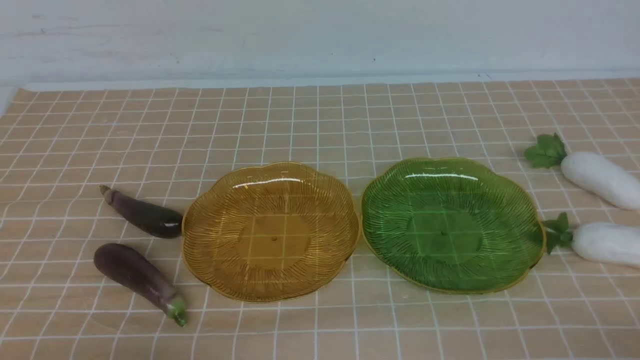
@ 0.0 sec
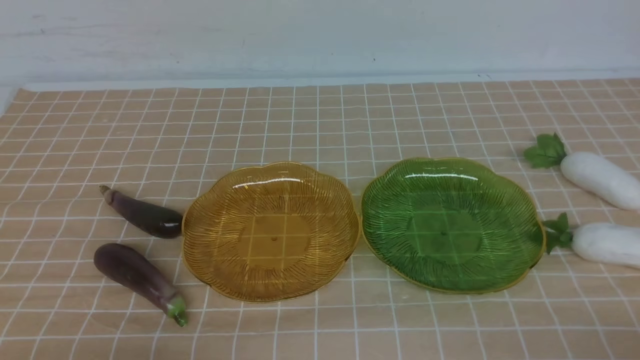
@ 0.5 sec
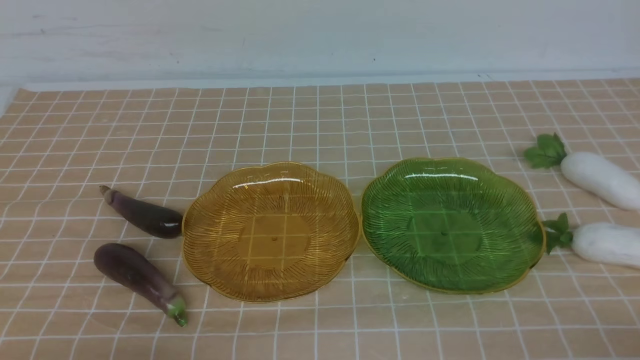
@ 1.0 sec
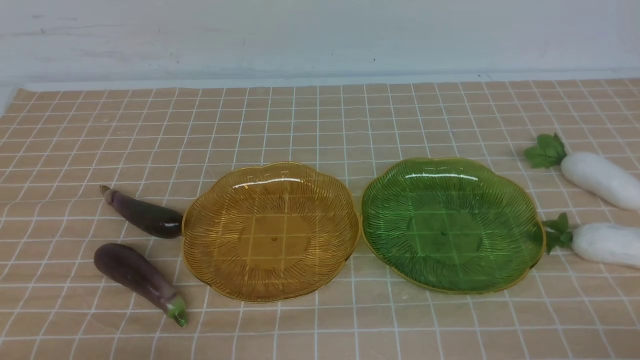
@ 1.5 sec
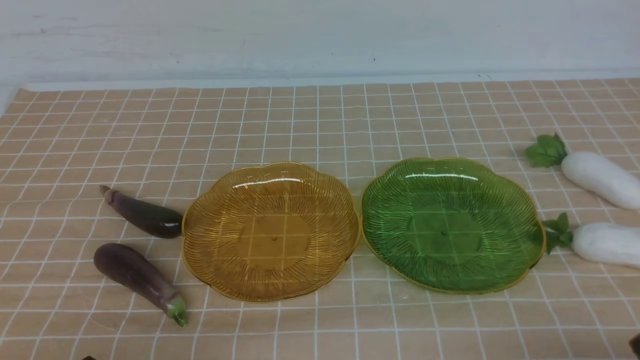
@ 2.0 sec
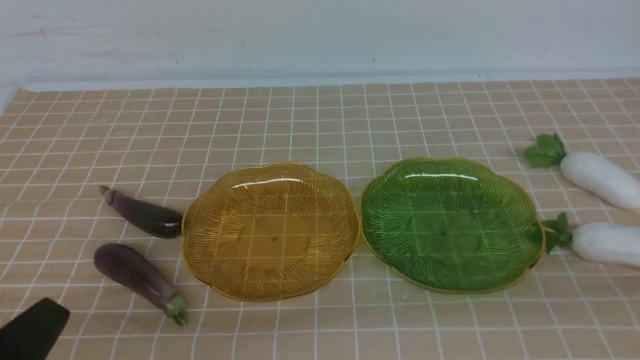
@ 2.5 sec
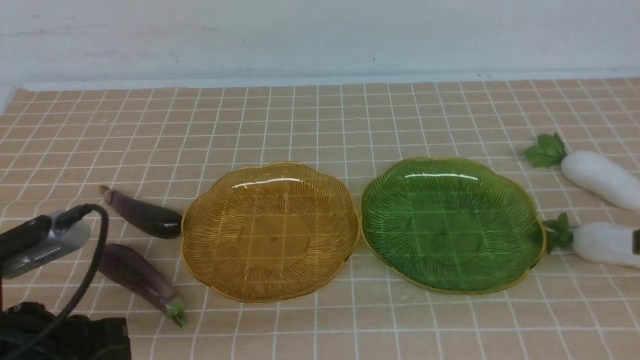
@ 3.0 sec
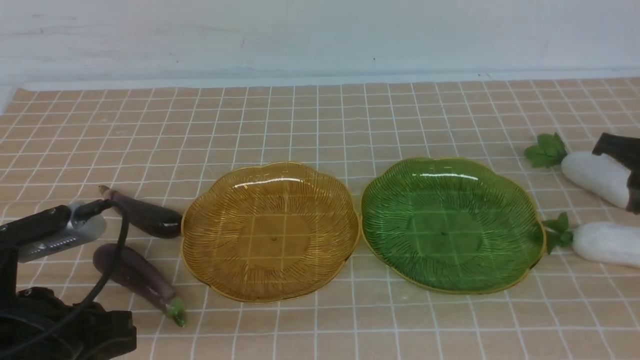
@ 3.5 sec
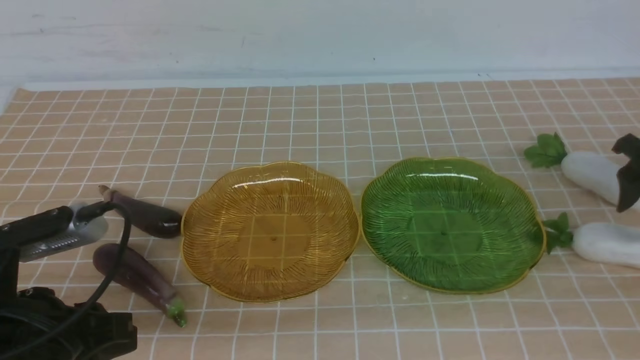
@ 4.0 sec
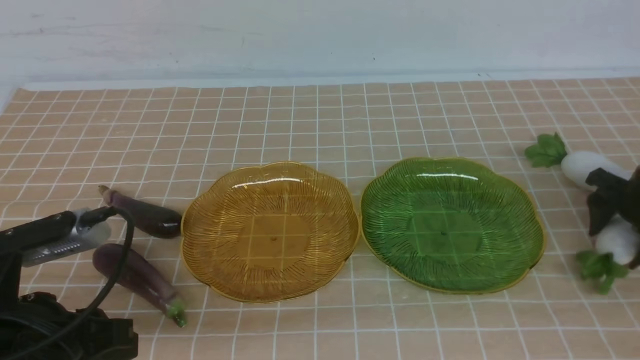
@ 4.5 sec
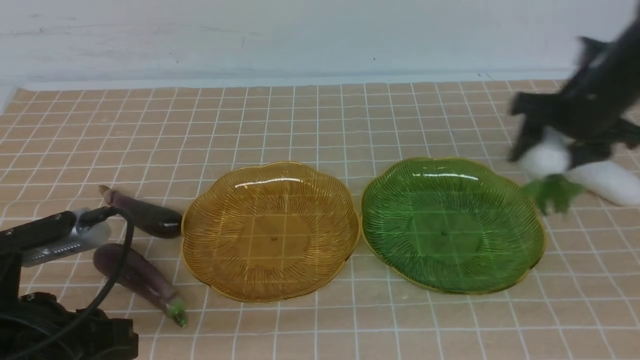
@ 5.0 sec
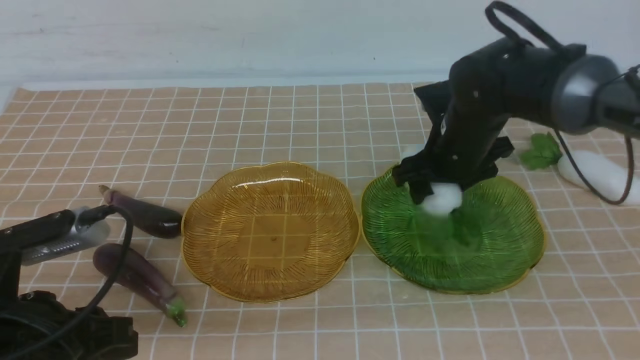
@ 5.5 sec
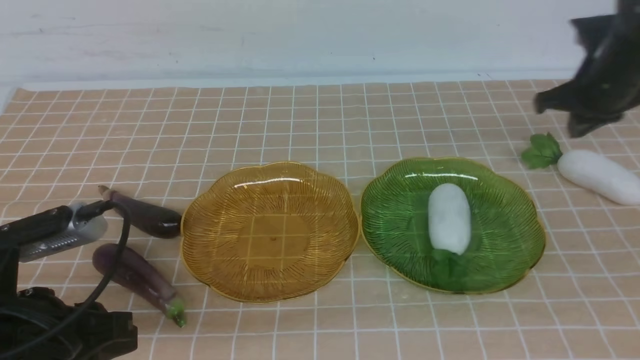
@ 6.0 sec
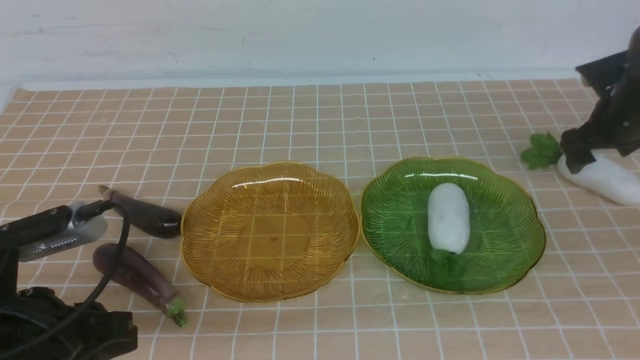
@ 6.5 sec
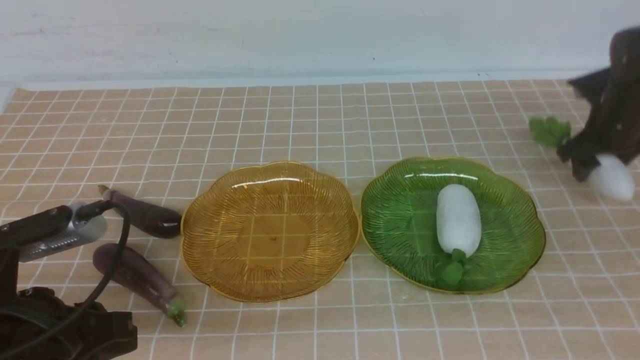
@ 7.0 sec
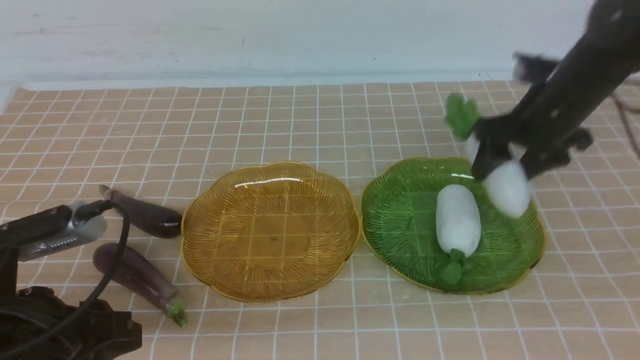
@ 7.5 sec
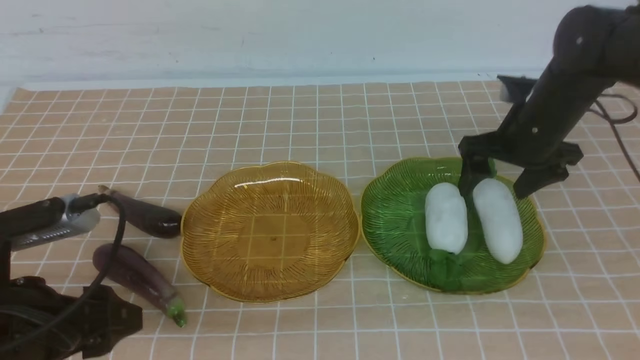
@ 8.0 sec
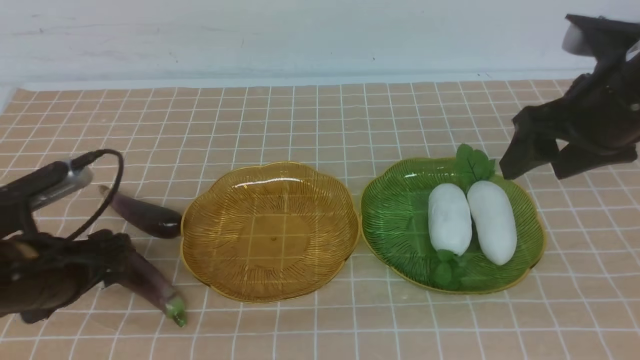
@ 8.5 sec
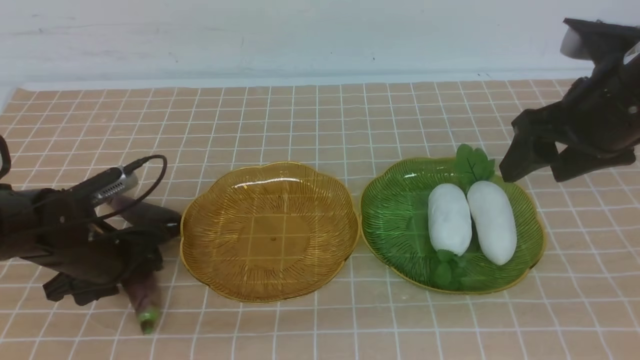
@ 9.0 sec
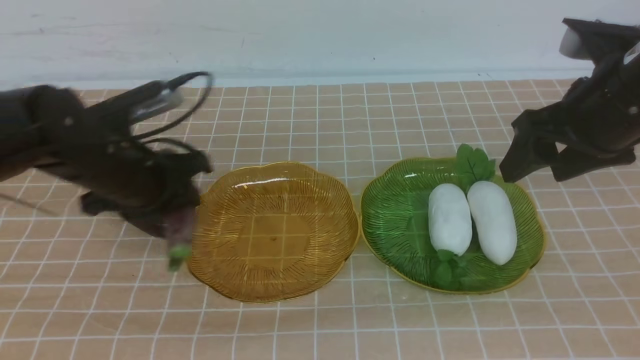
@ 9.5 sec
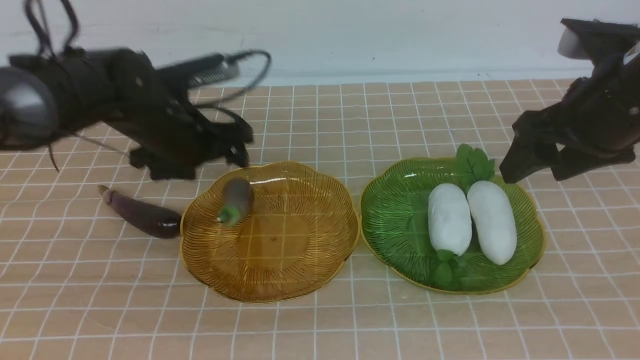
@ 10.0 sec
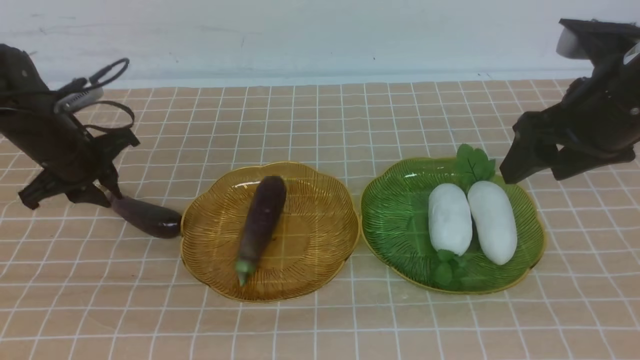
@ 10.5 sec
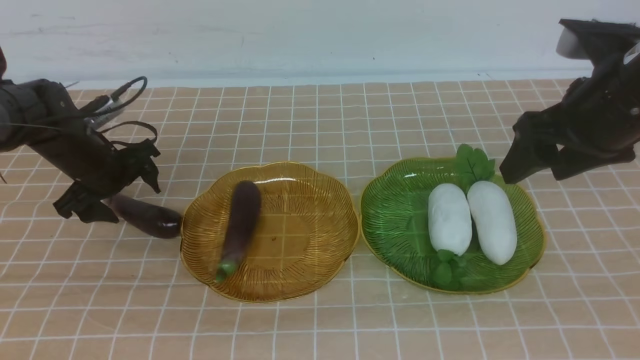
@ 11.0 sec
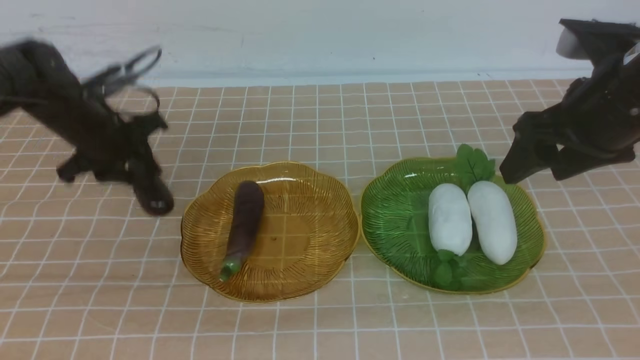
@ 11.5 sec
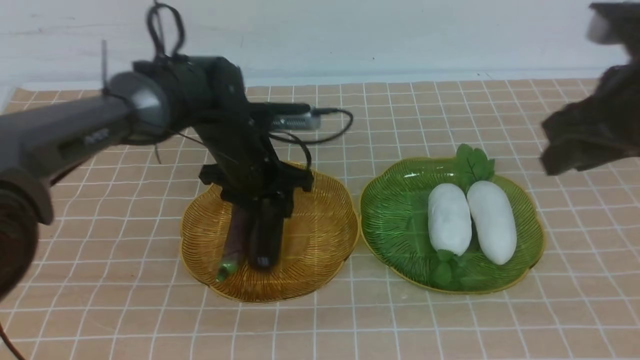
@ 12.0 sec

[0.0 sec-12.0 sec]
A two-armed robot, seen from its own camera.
Step, 0.0 sec to 8.0 sec: use the right arm to grab a radish and put it into the right plate.
Step, 8.5 sec to 10.0 sec: use the left arm to grab an eggplant and put it into the left plate.
2.0 sec to 4.0 sec: The right gripper shifts approximately 30 cm forward, and opens its fingers; the left gripper moves forward and upward, roughly 10 cm.
4.0 sec to 6.0 sec: The right gripper shifts roughly 15 cm to the left, forward and upward, and closes its fingers.
6.0 sec to 8.0 sec: The left gripper opens its fingers. Meanwhile the right gripper is displaced to the left by some 5 cm, and opens up.
8.0 sec to 10.0 sec: The right gripper goes about 10 cm backward and upward. The left gripper heads forward, covering roughly 25 cm, and closes and opens again.
10.0 sec to 12.0 sec: The left gripper goes some 5 cm to the right. The right gripper closes.

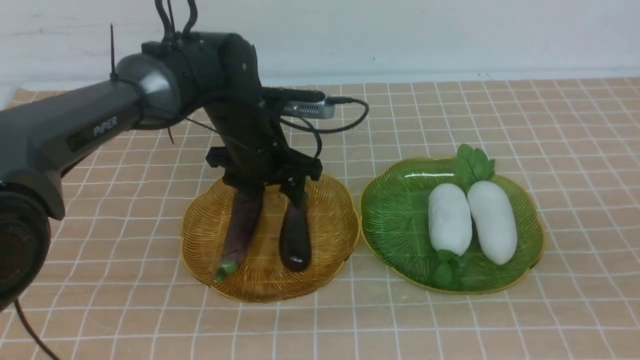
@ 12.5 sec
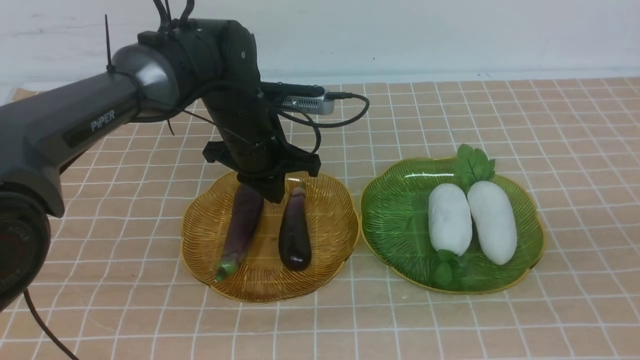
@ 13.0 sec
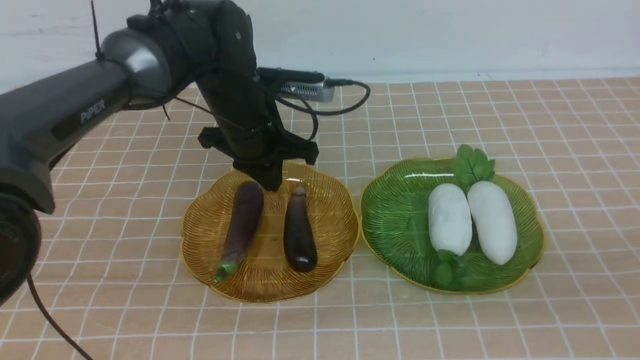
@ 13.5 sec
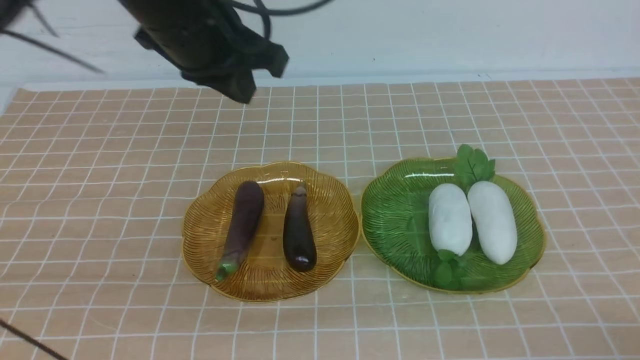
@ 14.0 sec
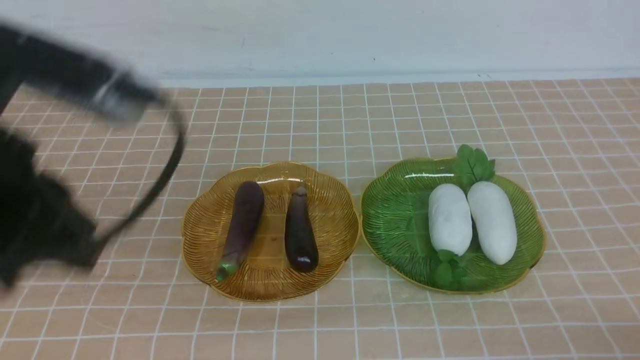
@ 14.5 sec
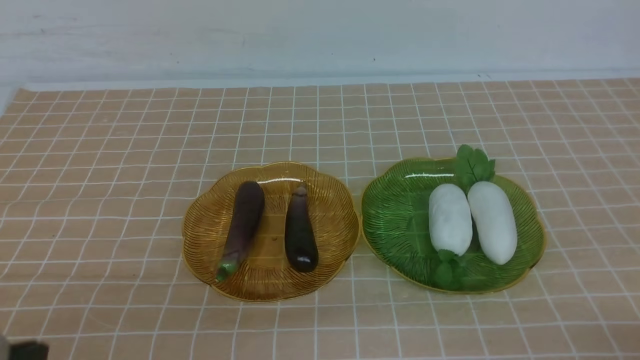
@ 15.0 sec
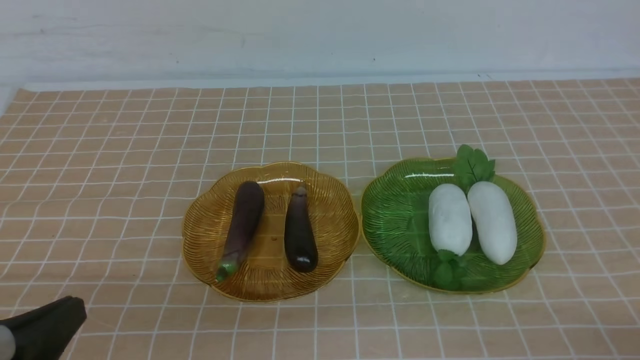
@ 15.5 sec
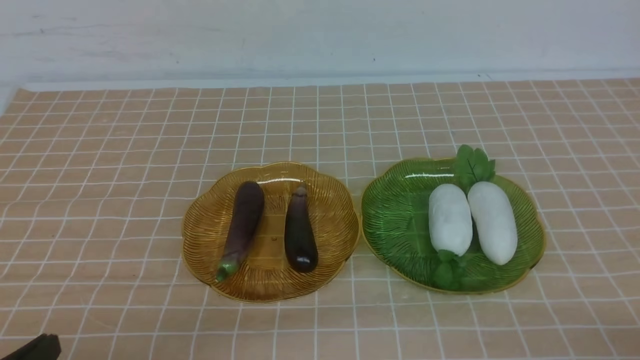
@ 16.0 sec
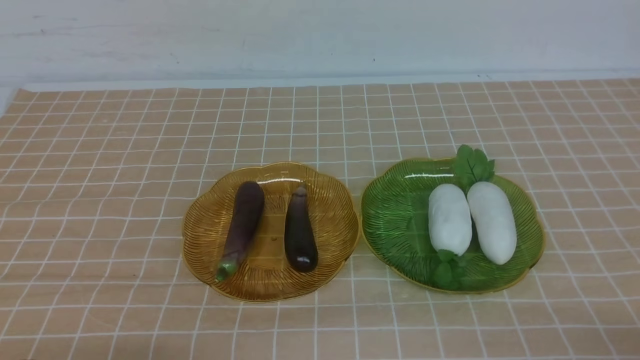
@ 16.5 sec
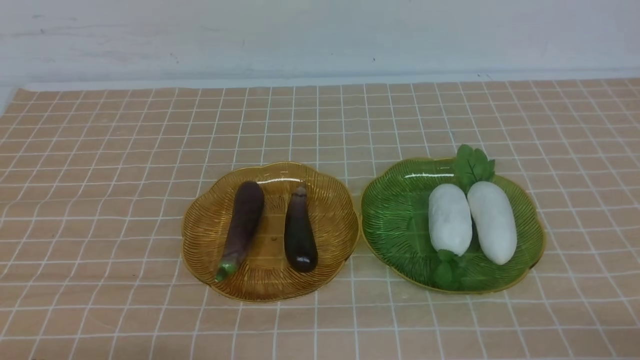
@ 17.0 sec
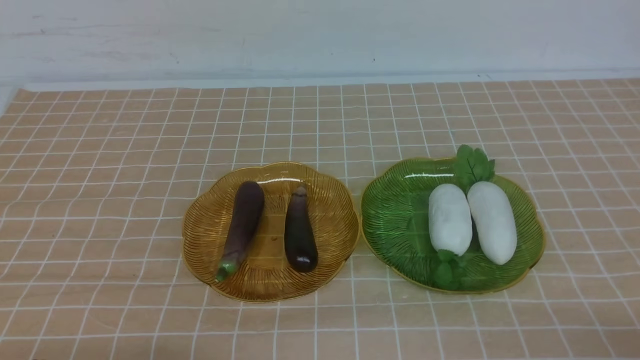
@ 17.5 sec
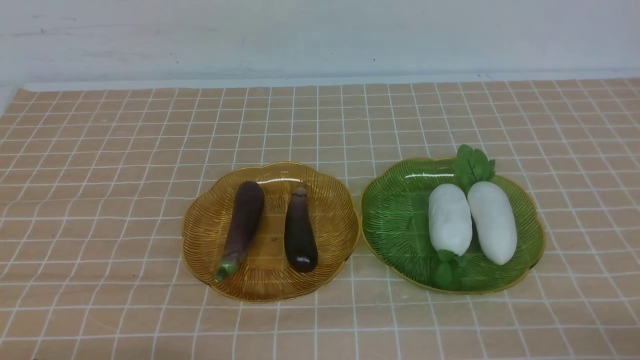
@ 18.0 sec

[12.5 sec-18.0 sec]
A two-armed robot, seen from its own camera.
12.5 sec to 14.5 sec: The right gripper travels downward and backward by some 15 cm; the left gripper travels backward, upward and to the left by some 30 cm, and closes.
14.5 sec to 16.0 sec: The left gripper is displaced downward and backward by roughly 20 cm.

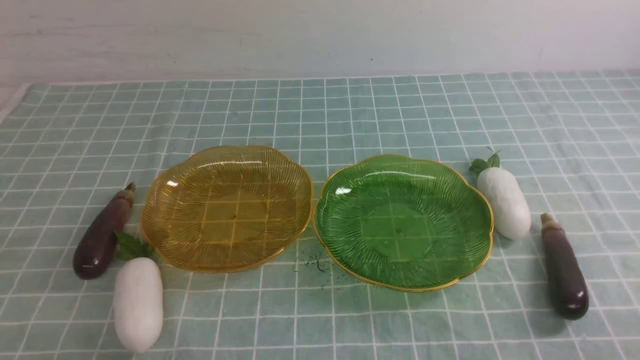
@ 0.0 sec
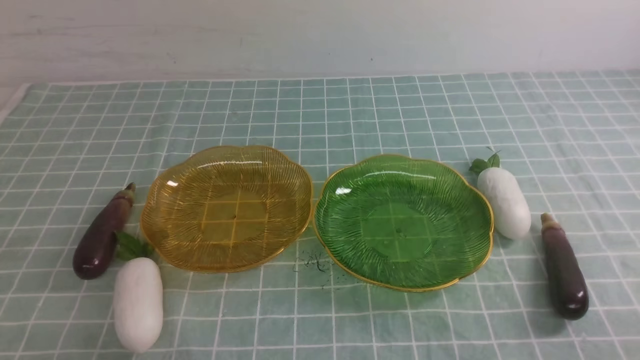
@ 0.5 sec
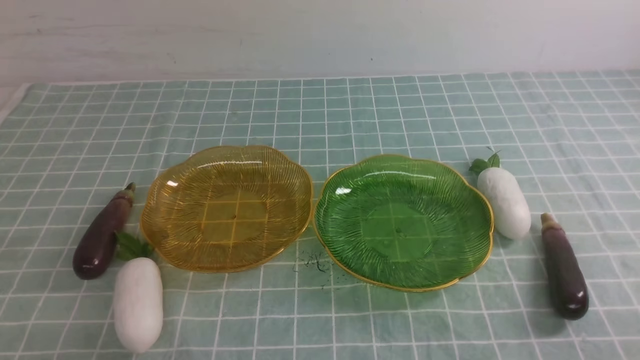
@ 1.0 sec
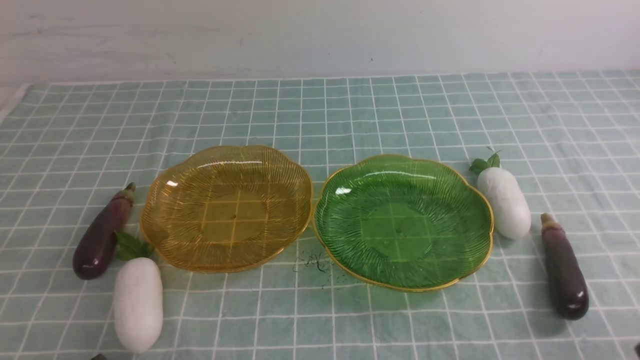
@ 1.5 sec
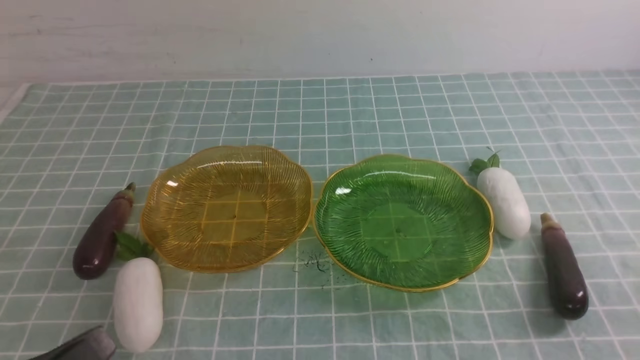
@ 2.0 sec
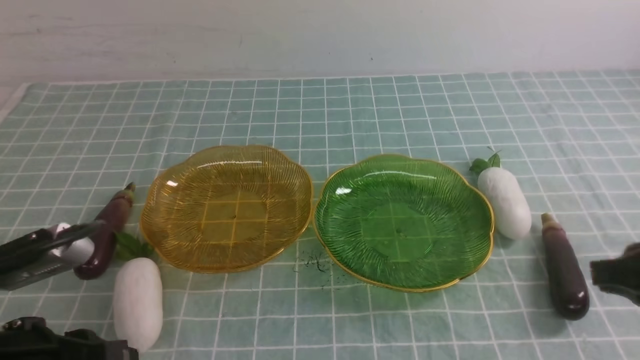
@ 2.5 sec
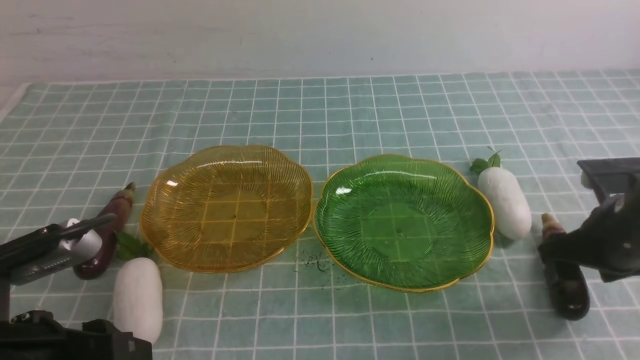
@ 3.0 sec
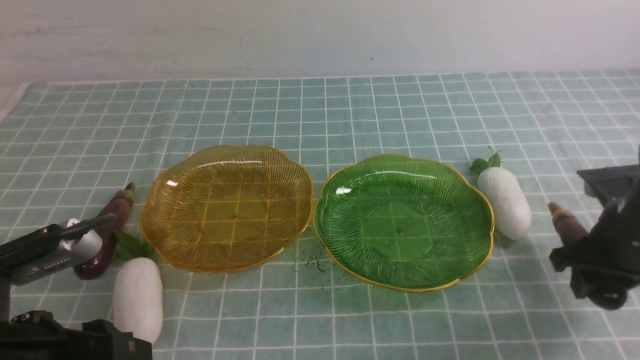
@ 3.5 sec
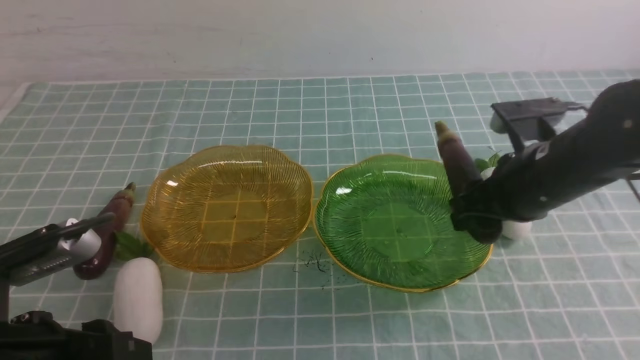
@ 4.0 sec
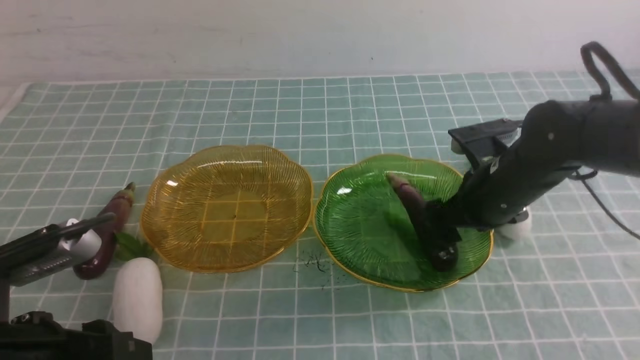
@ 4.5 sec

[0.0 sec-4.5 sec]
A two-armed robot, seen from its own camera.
Step, 0.0 sec to 4.5 sec: use the right arm to grab an eggplant and put it into the right plate.
2.0 sec to 4.5 sec: The left gripper shifts about 5 cm forward, and opens. The right gripper moves forward, some 30 cm, and opens up.
